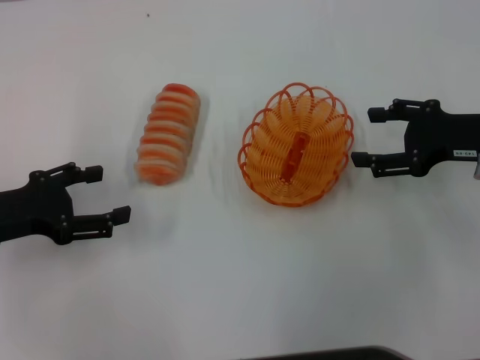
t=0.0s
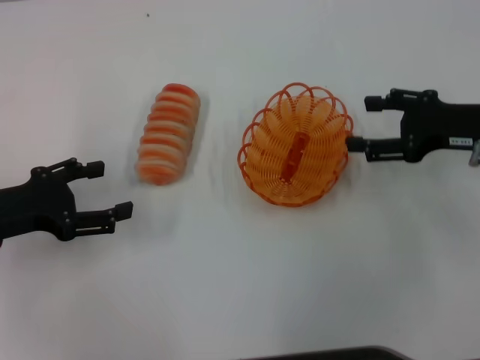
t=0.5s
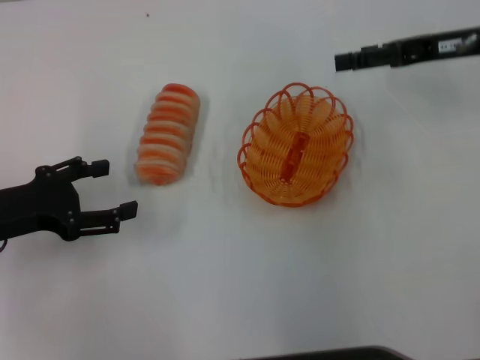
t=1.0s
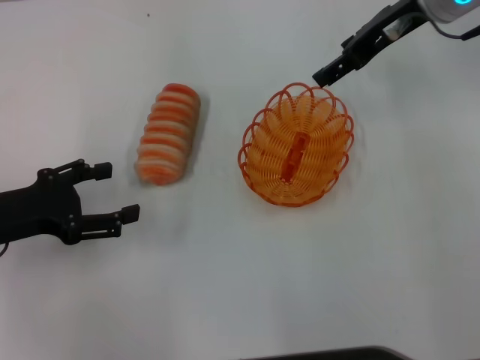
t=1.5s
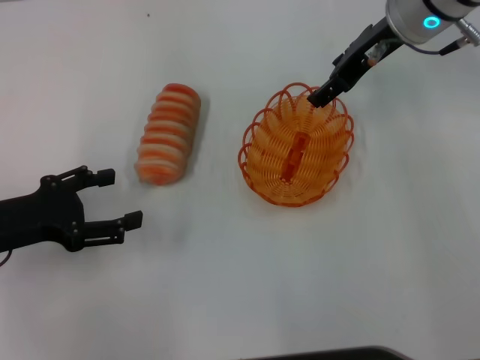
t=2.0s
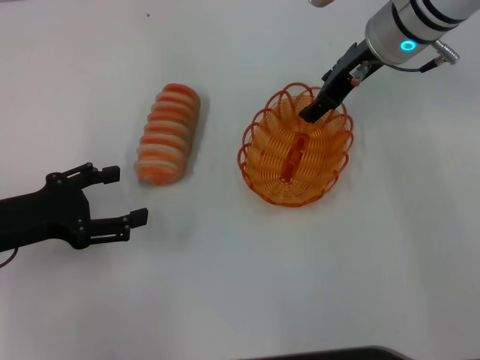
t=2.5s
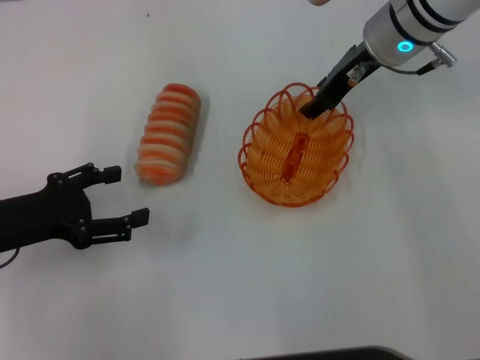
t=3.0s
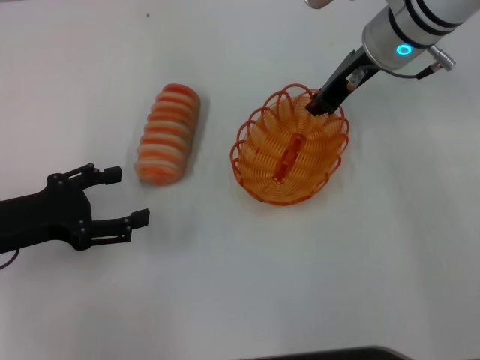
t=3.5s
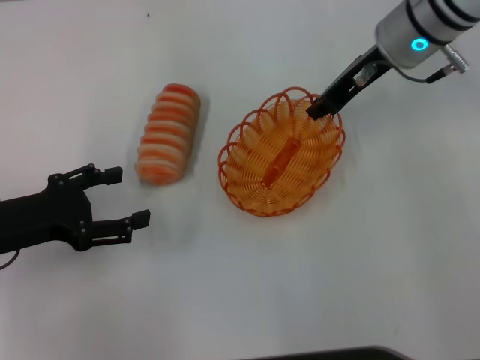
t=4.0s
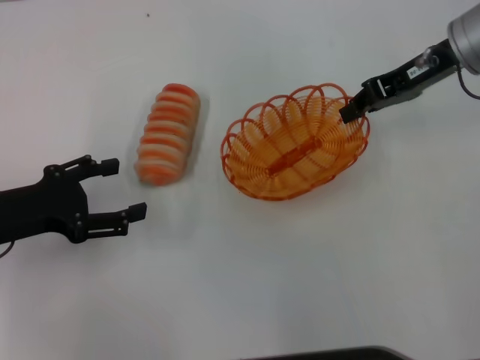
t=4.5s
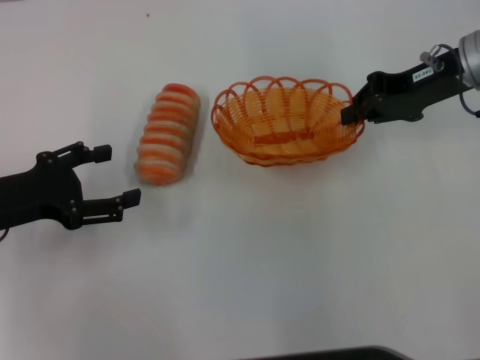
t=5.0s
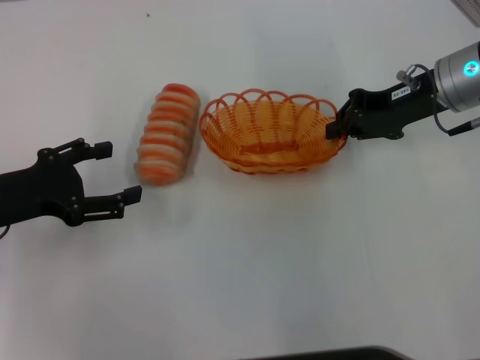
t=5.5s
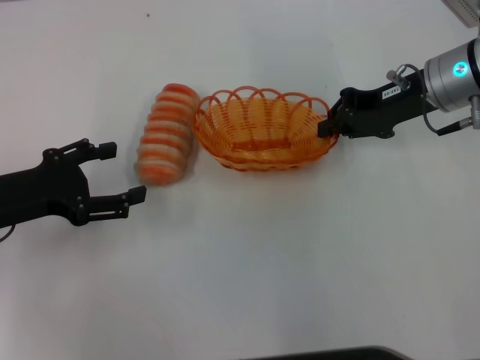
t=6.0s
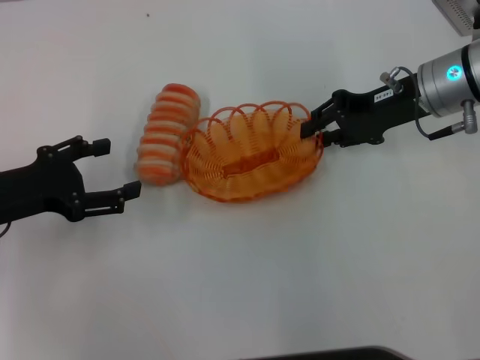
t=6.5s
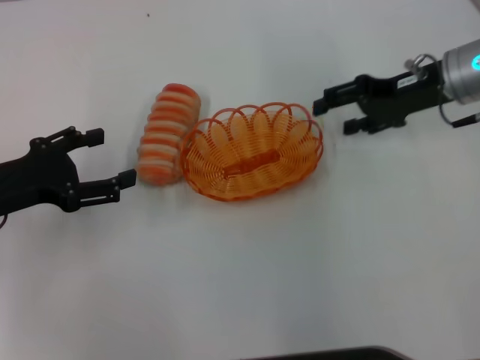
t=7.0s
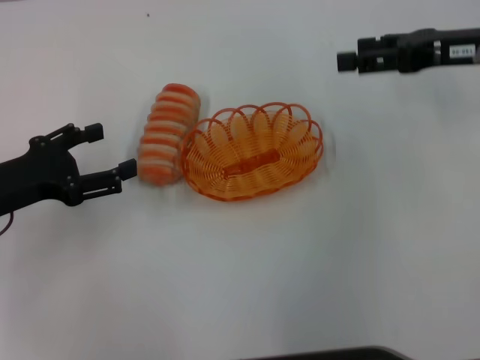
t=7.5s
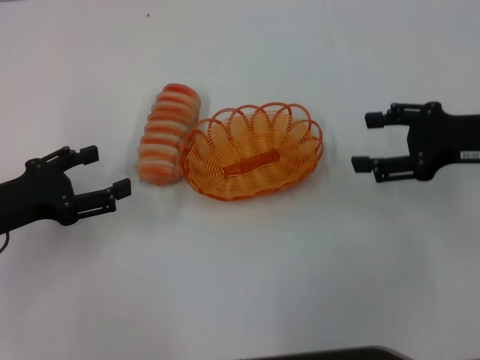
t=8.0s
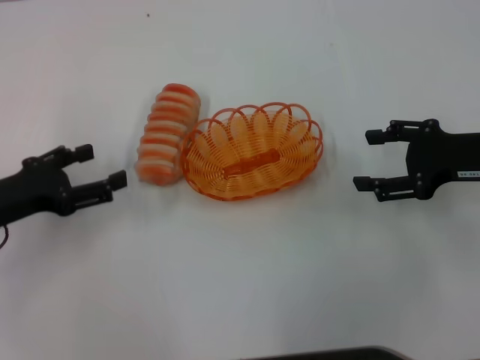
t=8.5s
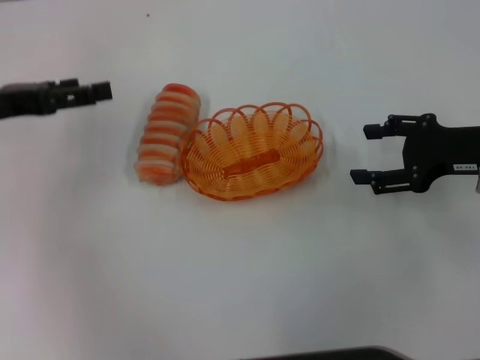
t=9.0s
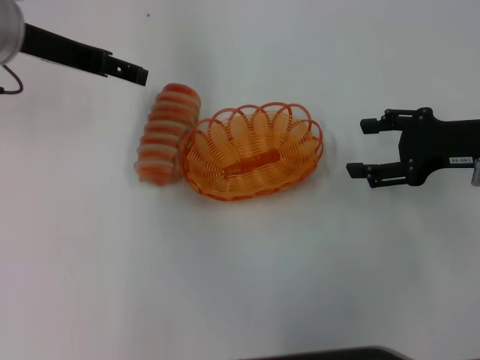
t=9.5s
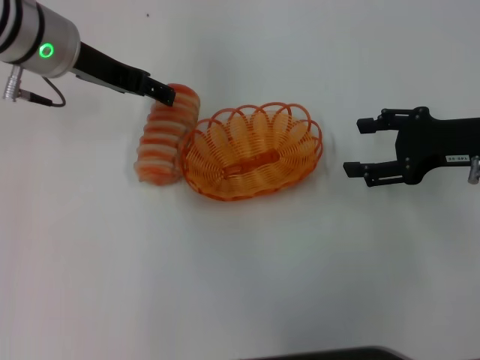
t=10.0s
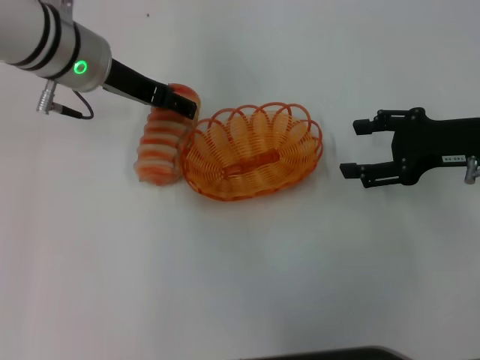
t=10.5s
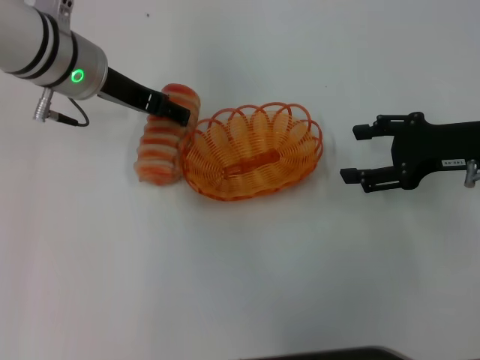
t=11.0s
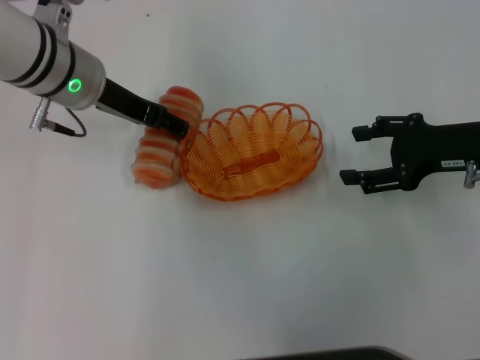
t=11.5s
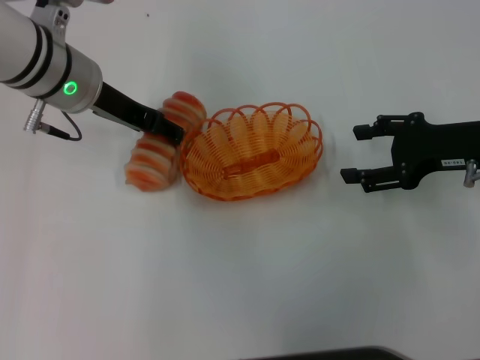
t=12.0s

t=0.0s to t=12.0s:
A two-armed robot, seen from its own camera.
Step, t=0.0s to t=4.0s: Pick up the basket with the right gripper.
Step, t=4.5s to t=7.0s: Place the basket in the center of view with the right gripper.
t=0.0s to t=2.0s: The right gripper shifts some 20 cm forward, to the left and upward.
t=2.0s to t=4.0s: The right gripper closes.
t=4.0s to t=6.0s: The right gripper goes about 5 cm to the right.
t=6.0s to t=8.0s: The right gripper goes some 10 cm backward and to the right, and opens.
t=8.0s to t=10.0s: The left gripper shifts some 20 cm forward, to the right and upward.
t=10.0s to t=12.0s: The grippers make only small movements.

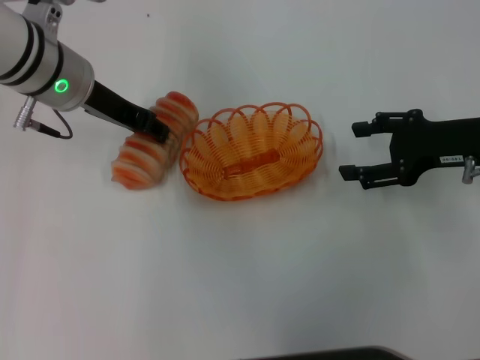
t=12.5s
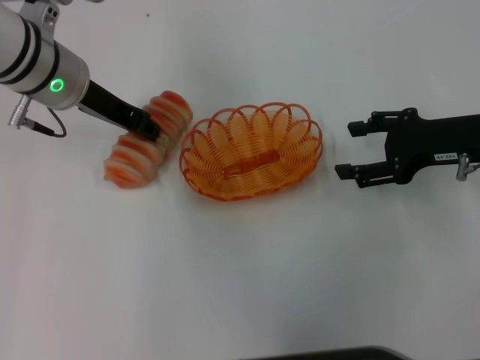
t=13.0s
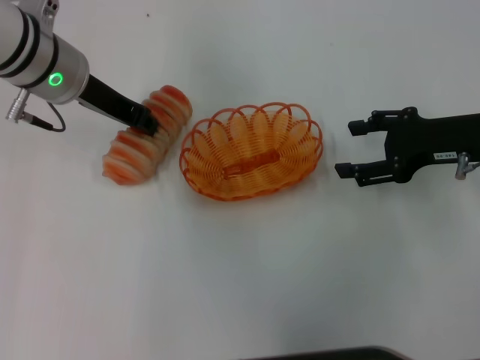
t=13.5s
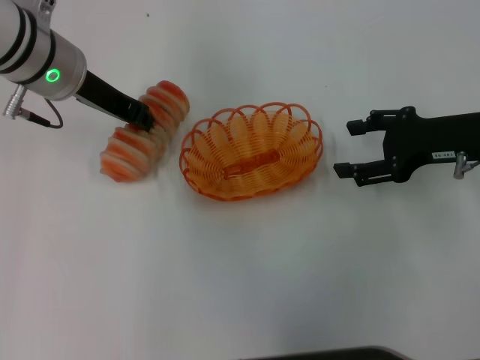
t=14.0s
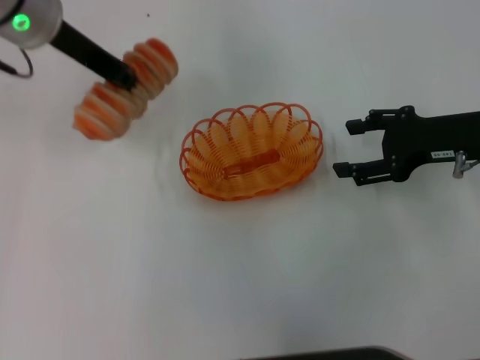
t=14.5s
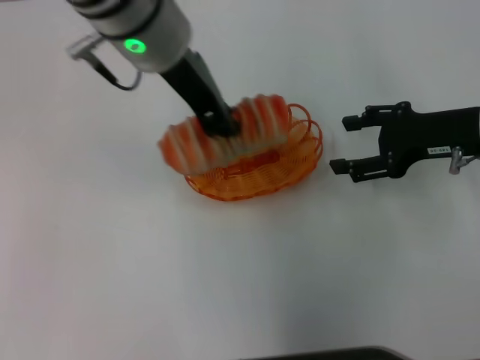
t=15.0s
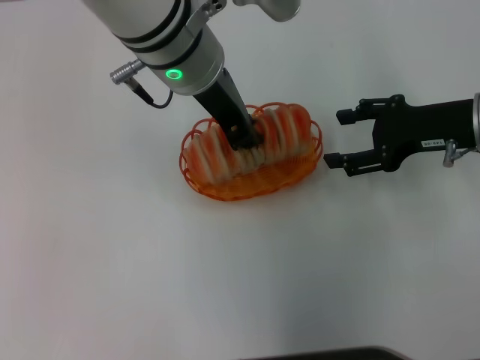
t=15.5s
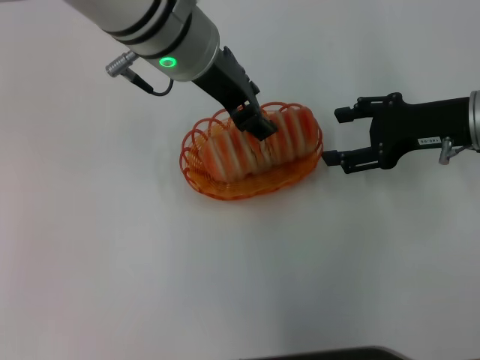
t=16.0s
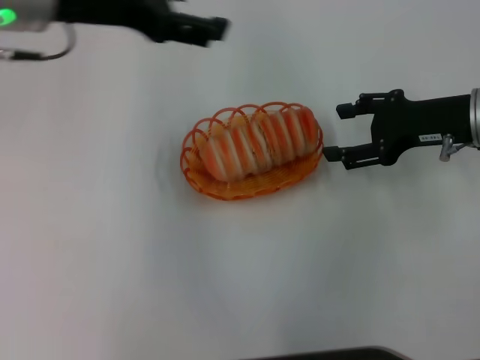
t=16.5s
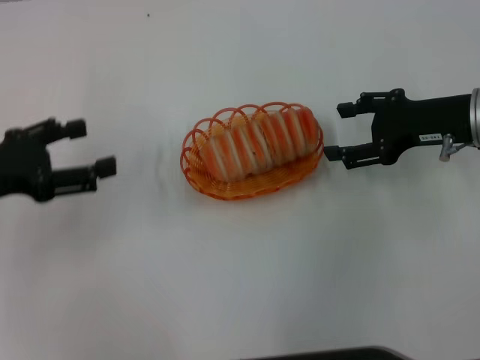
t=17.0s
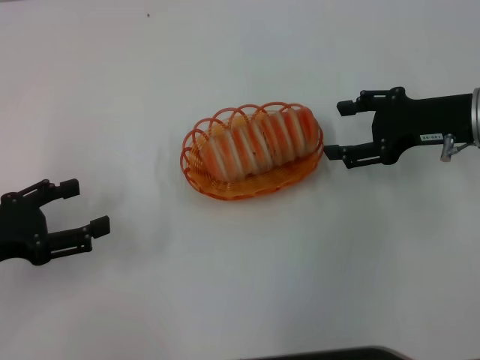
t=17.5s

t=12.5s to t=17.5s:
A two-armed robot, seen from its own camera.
Step, t=14.5s to t=16.0s: Place the long bread into the basket with the left gripper.
t=12.5s to t=15.0s: The left gripper heads to the right and upward, covering approximately 15 cm, and closes up.
t=15.0s to t=17.5s: The left gripper moves to the left, downward and backward, approximately 35 cm, and opens.
